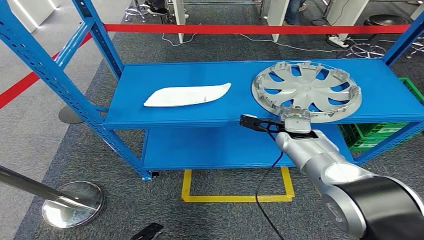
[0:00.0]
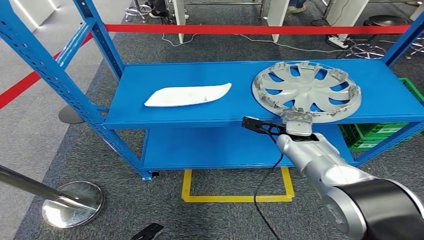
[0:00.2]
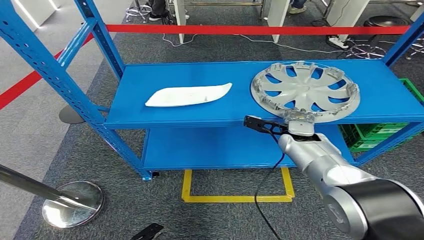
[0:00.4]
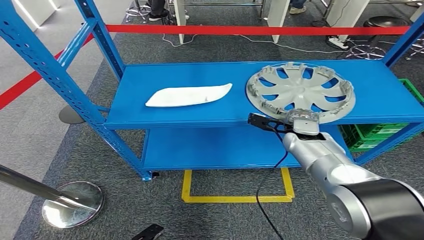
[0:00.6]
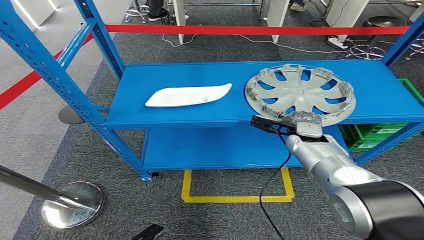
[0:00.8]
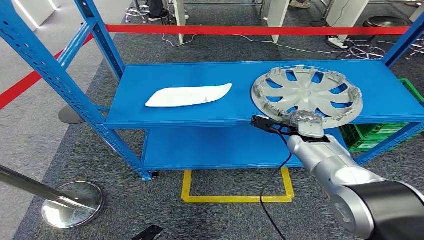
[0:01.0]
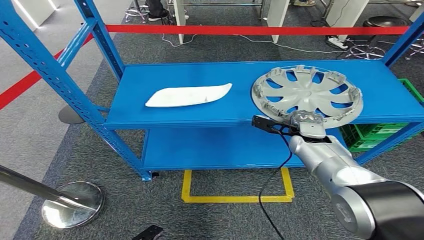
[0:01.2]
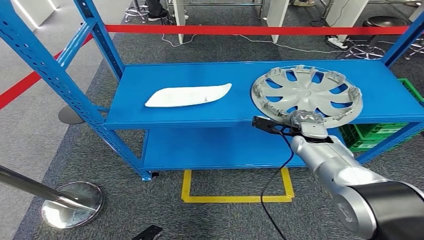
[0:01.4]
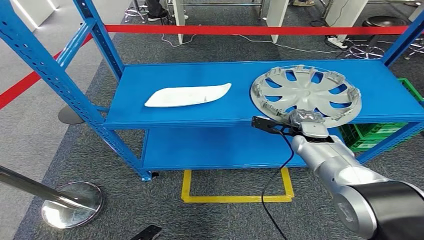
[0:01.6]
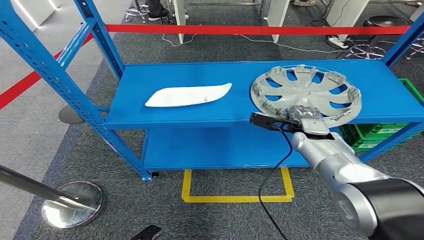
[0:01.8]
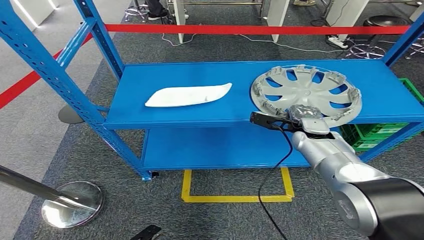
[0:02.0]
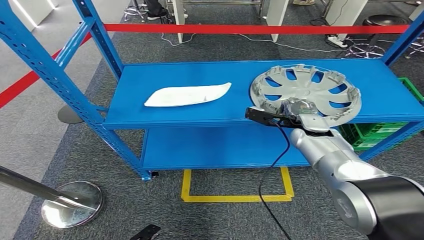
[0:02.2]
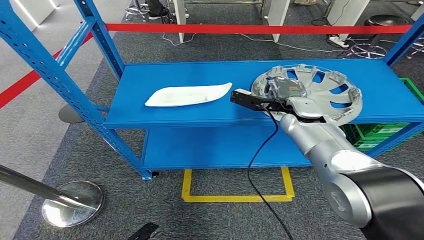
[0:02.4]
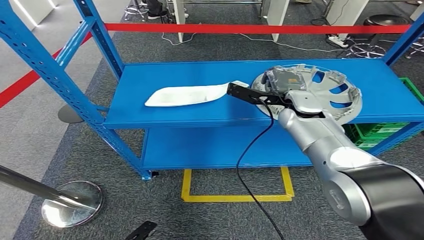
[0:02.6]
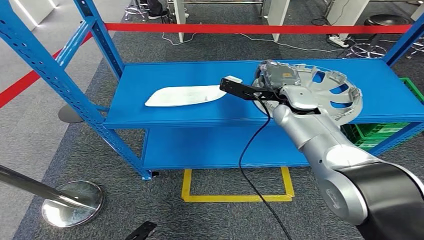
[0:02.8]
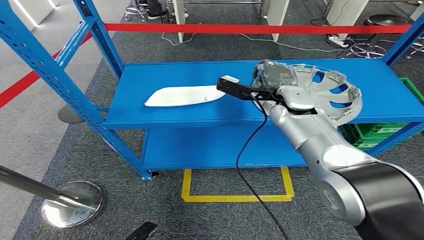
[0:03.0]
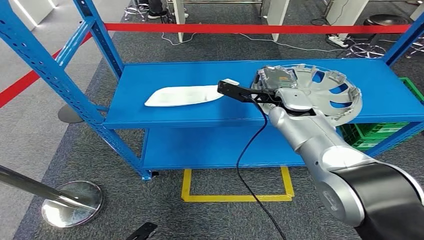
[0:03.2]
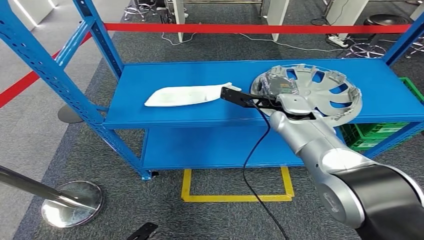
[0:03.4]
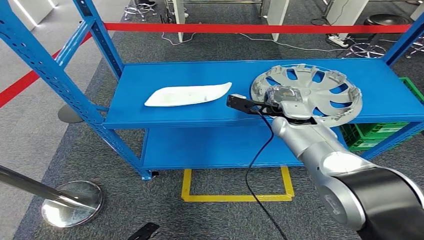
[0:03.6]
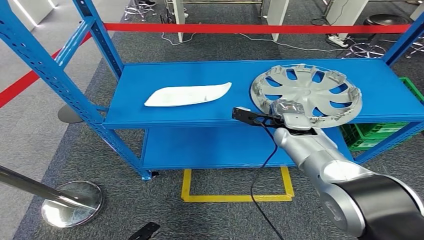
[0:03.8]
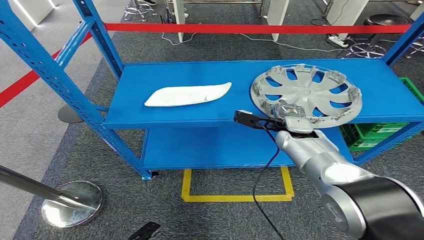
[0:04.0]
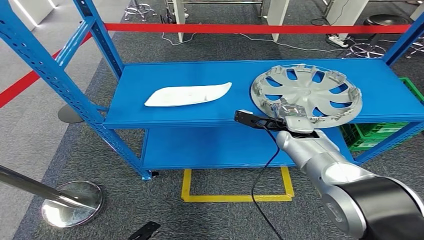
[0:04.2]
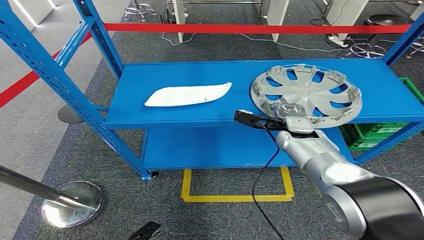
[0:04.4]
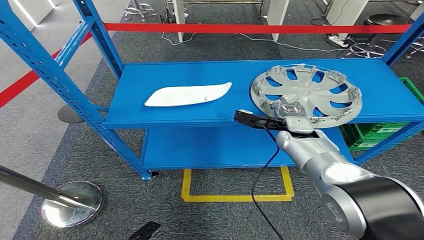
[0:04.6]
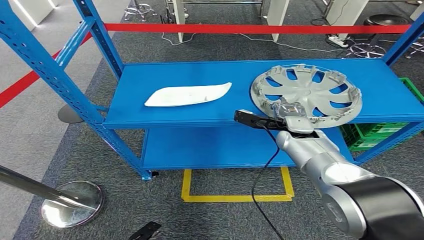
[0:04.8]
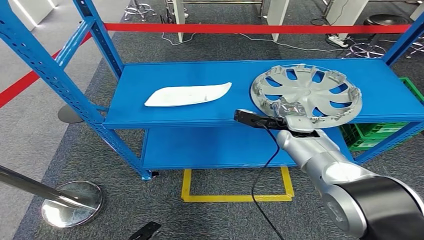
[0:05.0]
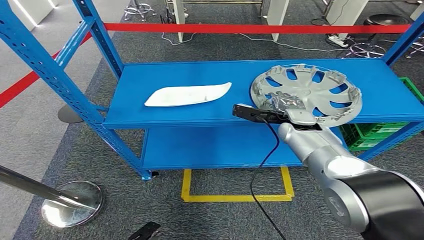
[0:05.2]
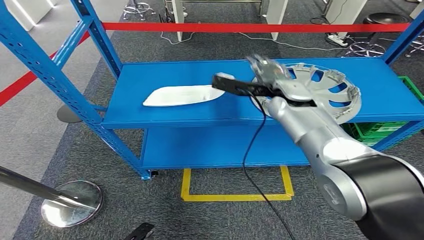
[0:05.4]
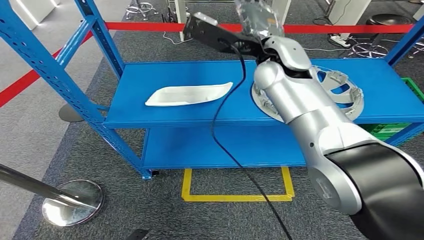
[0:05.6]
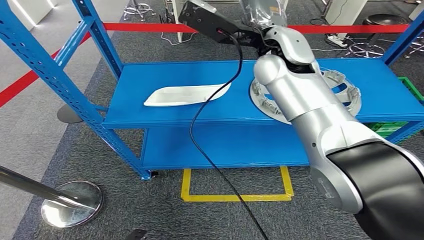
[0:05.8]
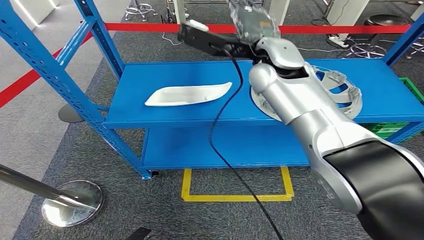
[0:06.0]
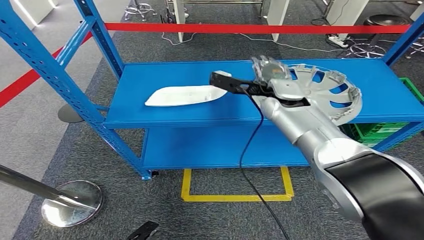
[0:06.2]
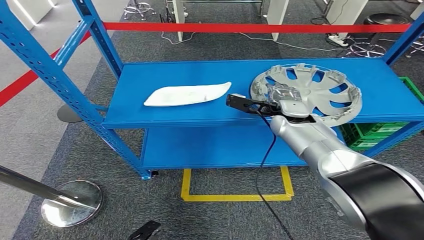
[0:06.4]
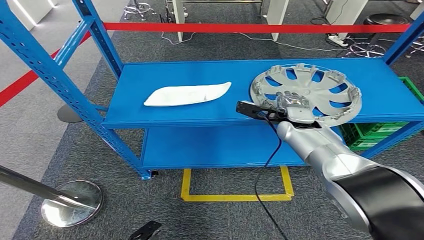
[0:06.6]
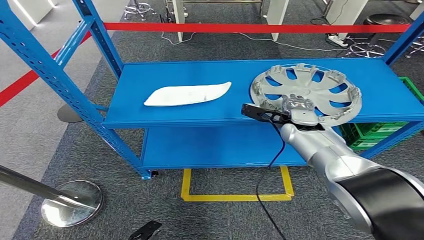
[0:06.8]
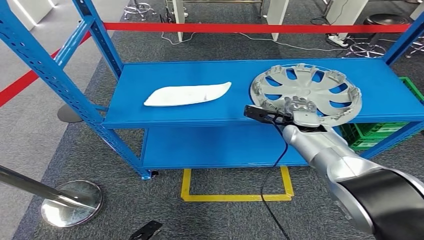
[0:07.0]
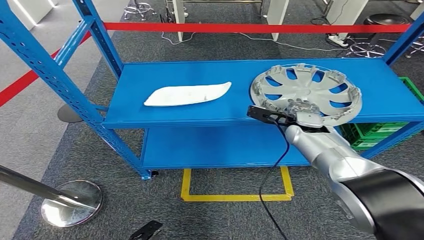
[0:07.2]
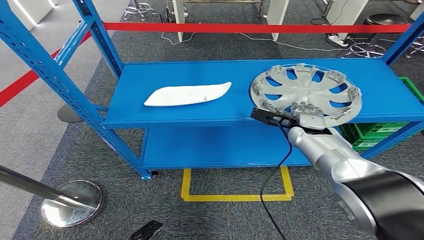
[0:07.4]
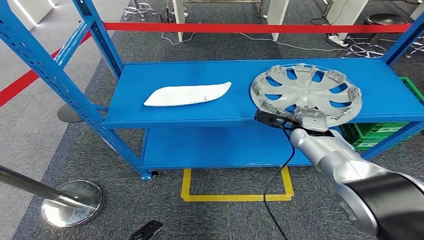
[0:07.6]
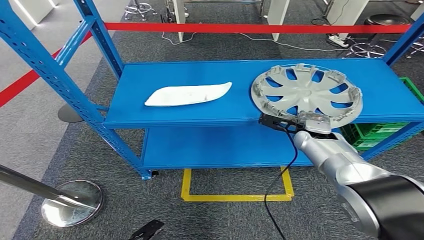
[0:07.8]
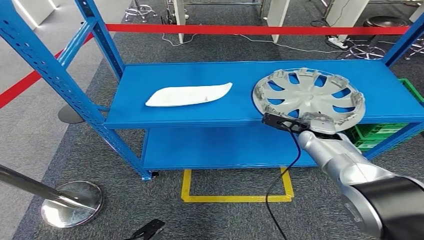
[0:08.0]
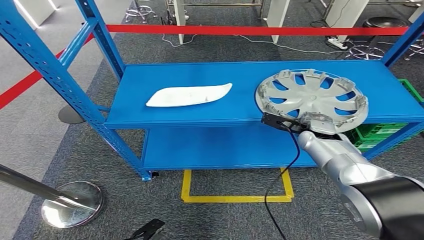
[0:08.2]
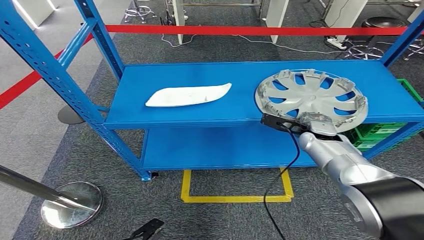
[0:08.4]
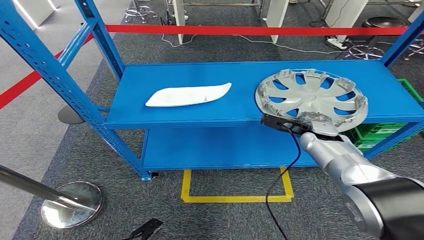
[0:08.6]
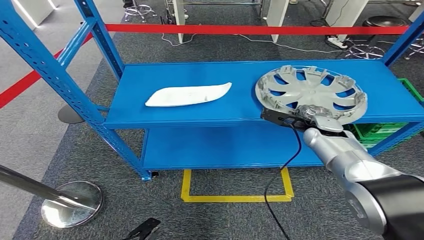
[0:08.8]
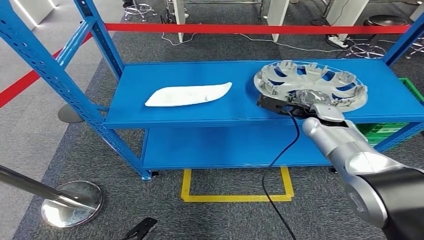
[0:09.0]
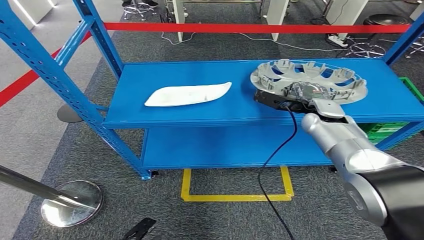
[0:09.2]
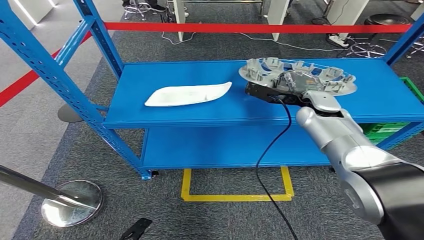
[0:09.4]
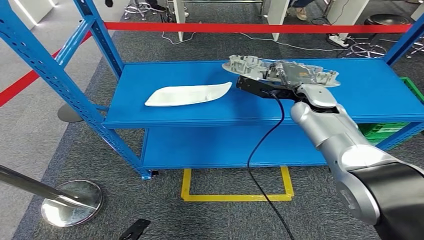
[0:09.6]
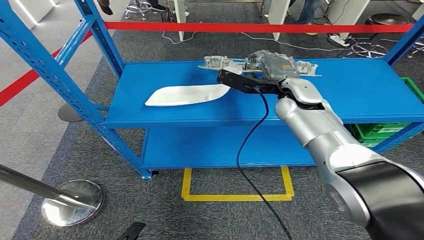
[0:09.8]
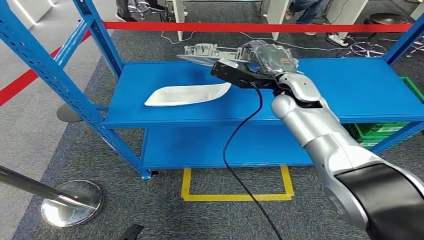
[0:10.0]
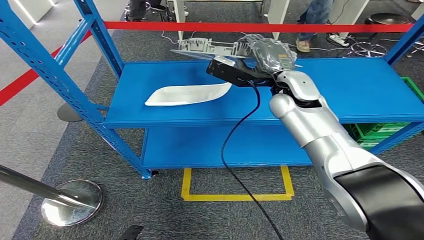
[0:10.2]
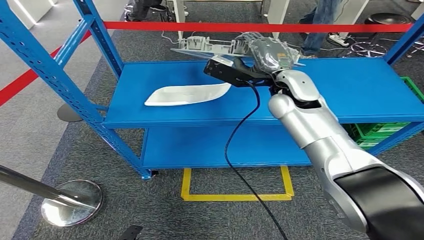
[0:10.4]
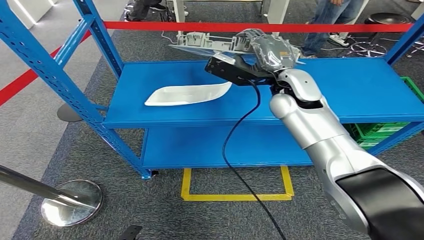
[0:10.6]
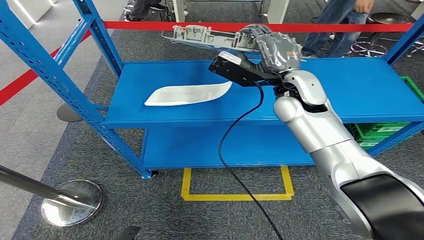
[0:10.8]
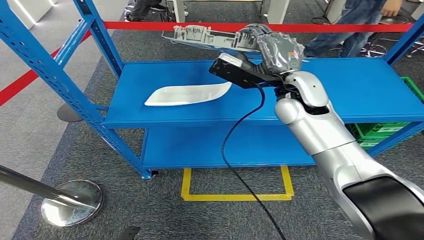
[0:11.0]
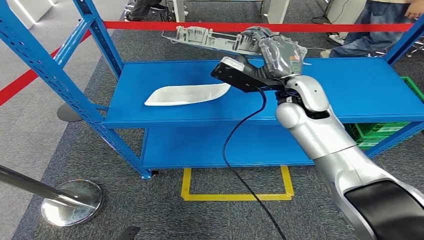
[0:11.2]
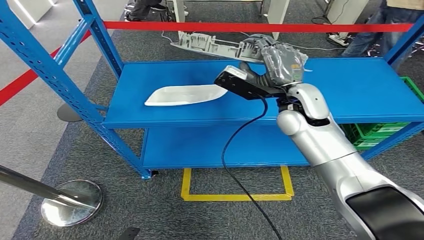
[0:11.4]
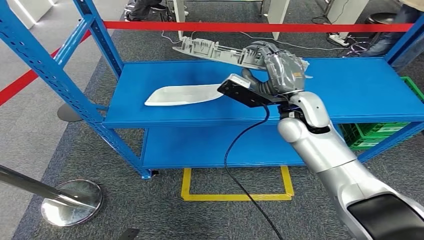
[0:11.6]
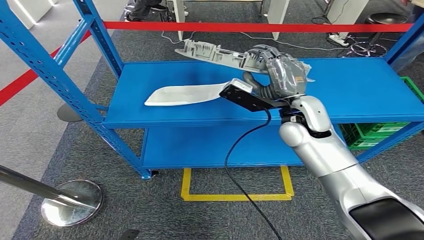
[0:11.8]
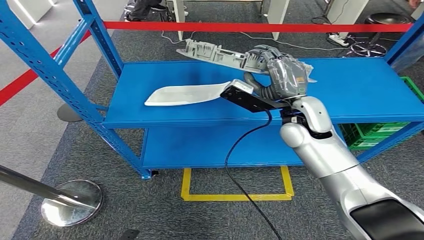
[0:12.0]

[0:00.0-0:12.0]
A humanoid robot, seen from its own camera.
Step, 0:00.0 to 0:09.6: Pick up the small component from the shelf.
0:00.0 to 0:01.6: The hands move only a little.
0:01.6 to 0:03.0: The right hand travels upward and to the left by approximately 15 cm.
0:03.0 to 0:04.4: The right hand heads downward, covering some 10 cm.
0:06.0 to 0:07.6: The right hand heads downward and to the right, covering some 25 cm.
0:07.6 to 0:09.0: There are only small adjustments of the hands.
0:10.4 to 0:12.0: The right hand heads backward, covering about 5 cm.

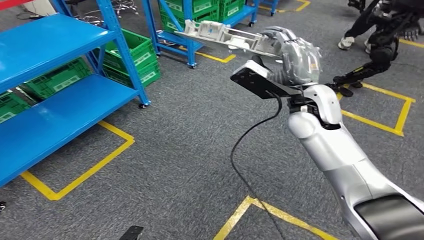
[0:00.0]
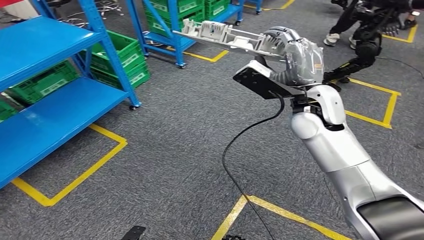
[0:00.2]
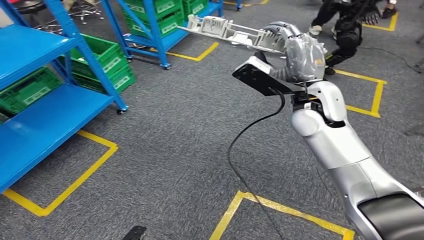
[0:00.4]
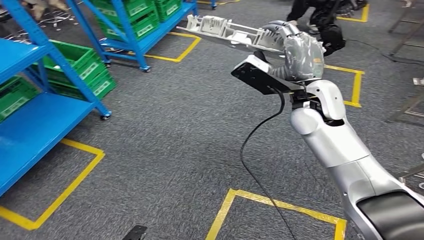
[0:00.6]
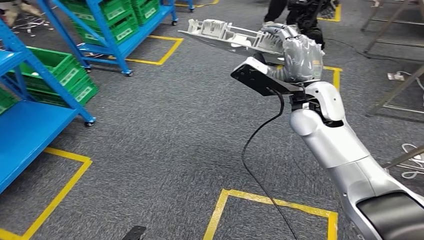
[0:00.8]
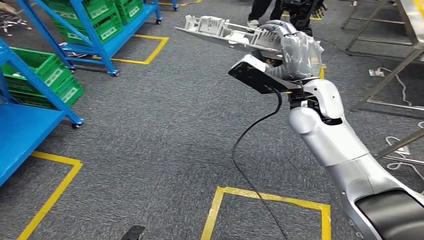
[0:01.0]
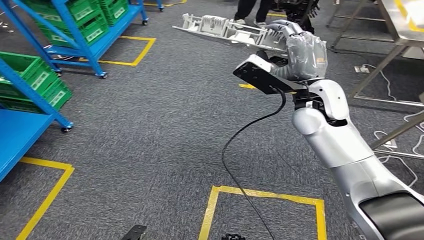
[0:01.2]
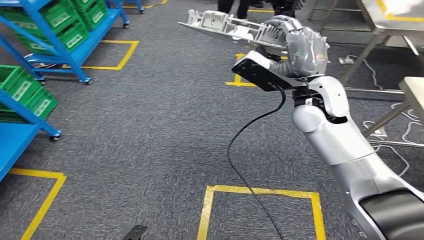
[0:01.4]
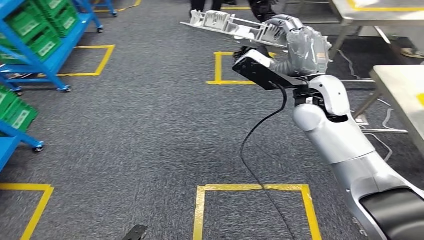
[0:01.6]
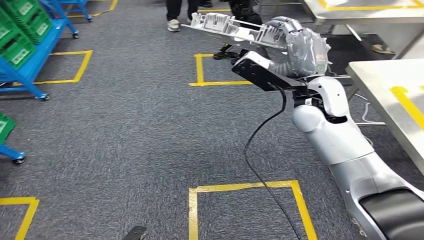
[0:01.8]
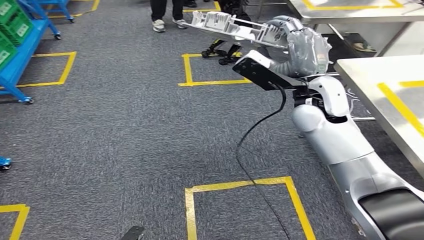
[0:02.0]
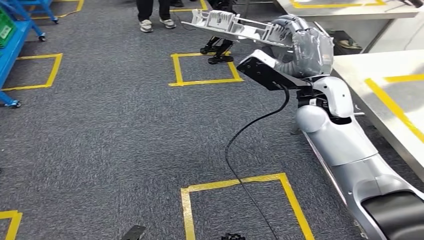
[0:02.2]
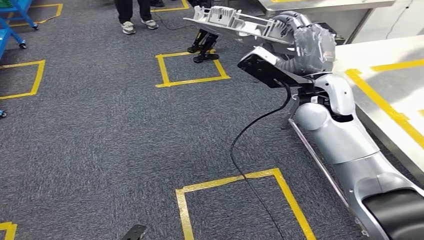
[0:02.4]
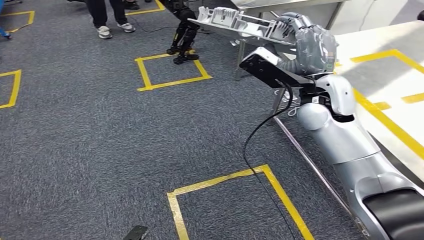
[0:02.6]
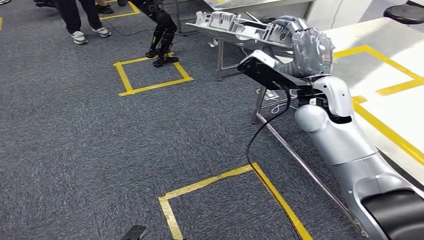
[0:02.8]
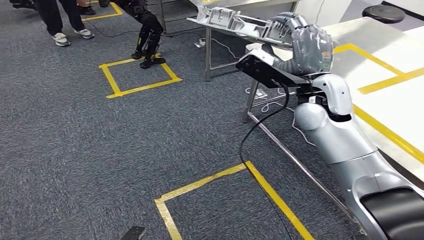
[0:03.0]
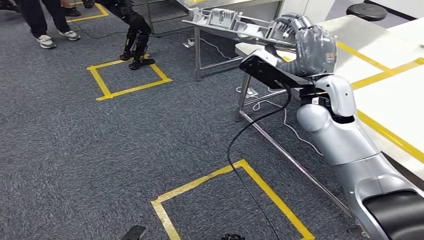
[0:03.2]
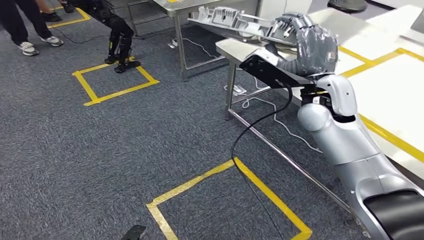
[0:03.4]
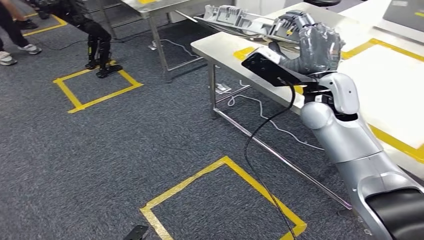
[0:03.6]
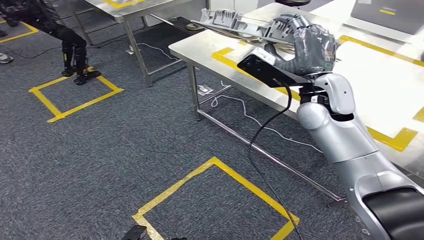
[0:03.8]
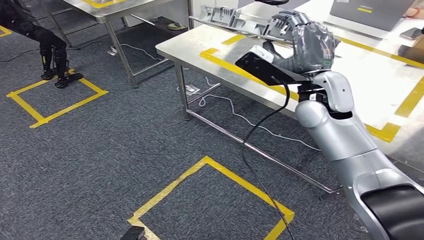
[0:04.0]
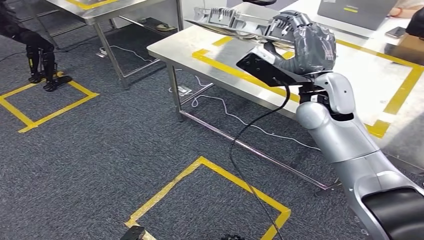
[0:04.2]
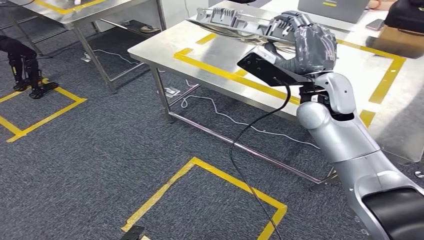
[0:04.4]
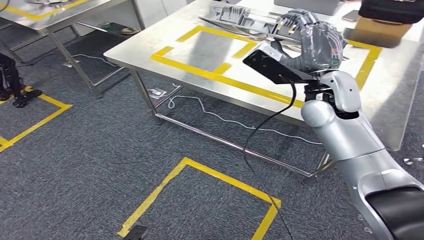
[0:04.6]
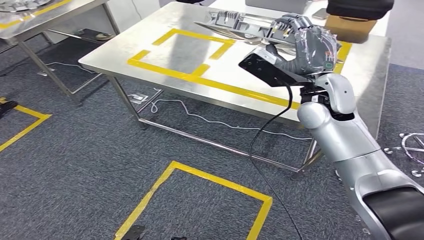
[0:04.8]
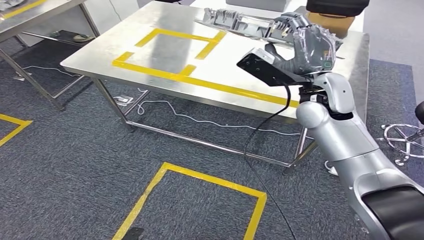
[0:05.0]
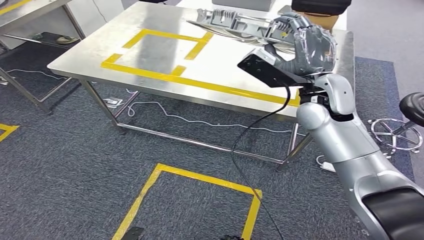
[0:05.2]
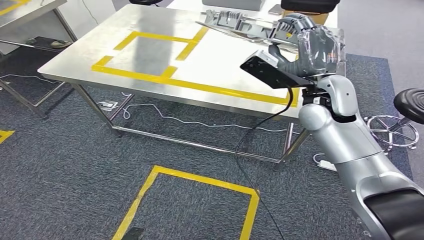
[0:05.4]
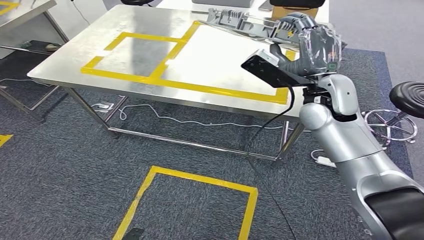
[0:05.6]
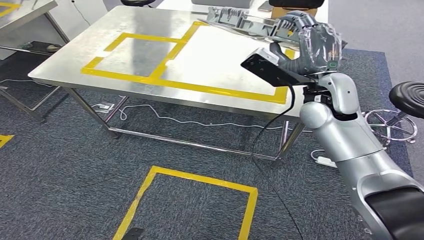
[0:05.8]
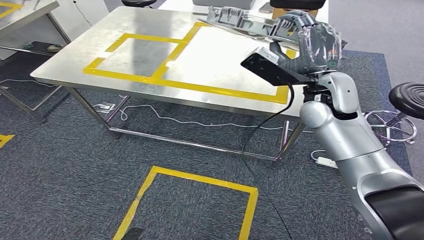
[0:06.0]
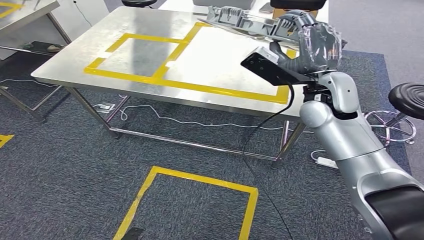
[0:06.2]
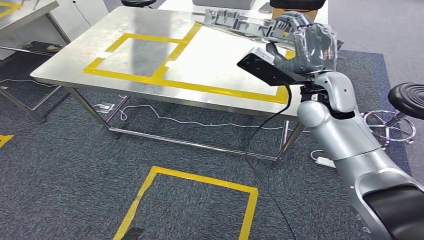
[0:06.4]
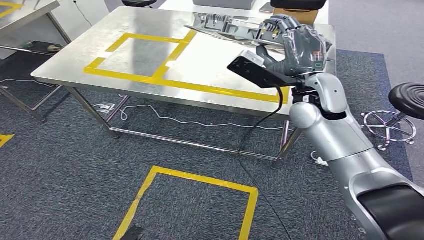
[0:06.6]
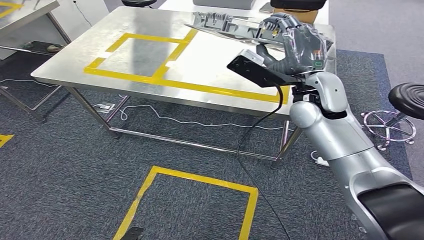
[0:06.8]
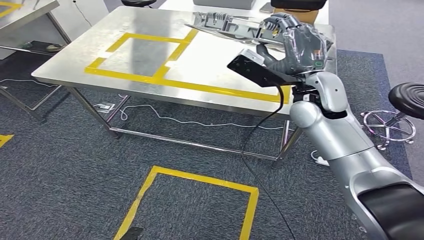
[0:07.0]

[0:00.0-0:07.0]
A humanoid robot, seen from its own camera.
0:05.6 to 0:07.0: The hands stay close to where they were, moving slightly.
